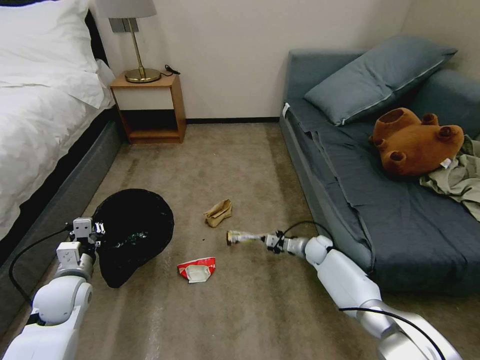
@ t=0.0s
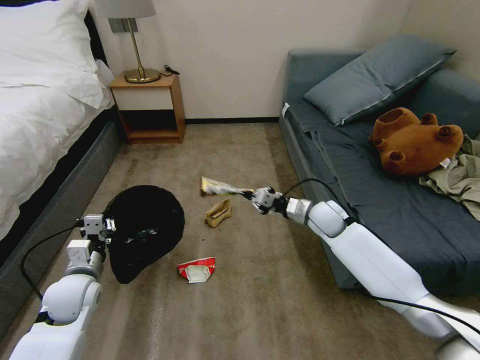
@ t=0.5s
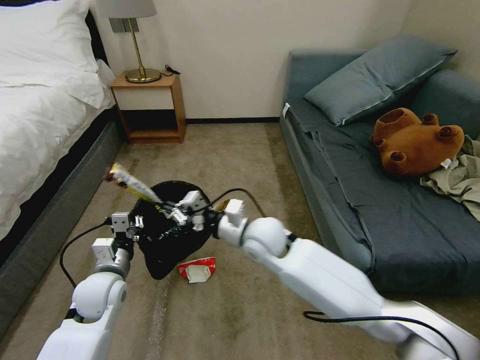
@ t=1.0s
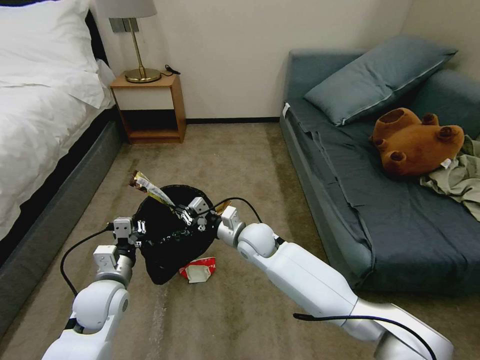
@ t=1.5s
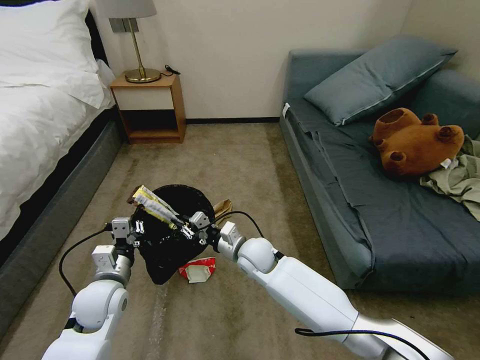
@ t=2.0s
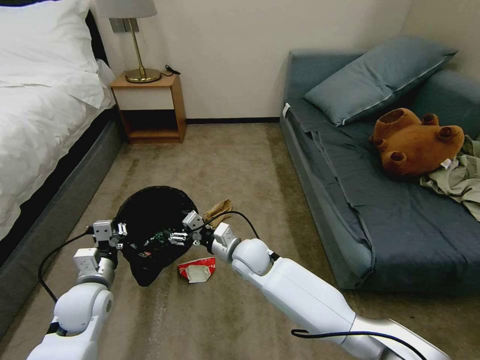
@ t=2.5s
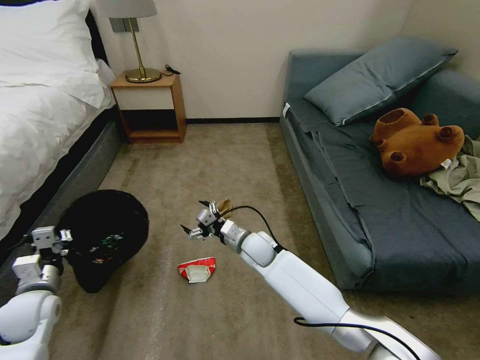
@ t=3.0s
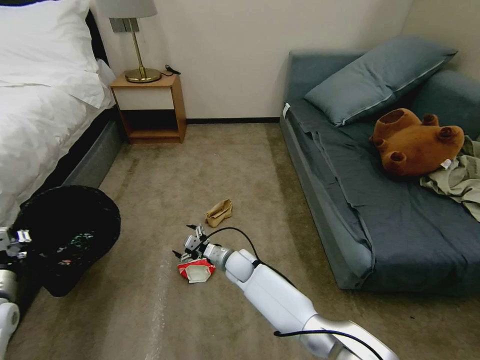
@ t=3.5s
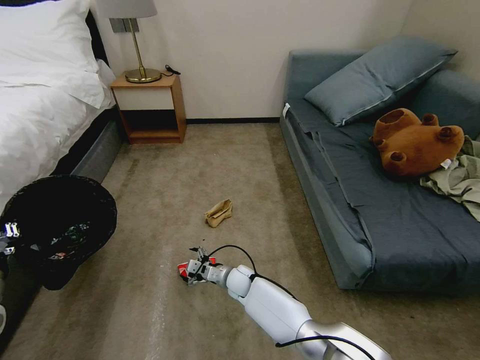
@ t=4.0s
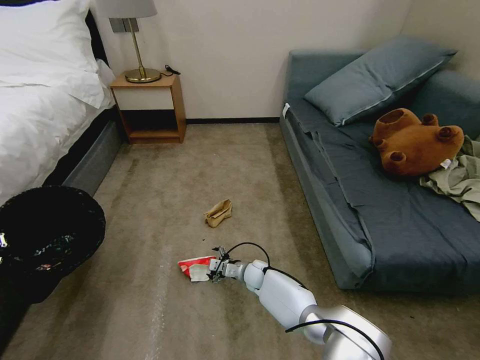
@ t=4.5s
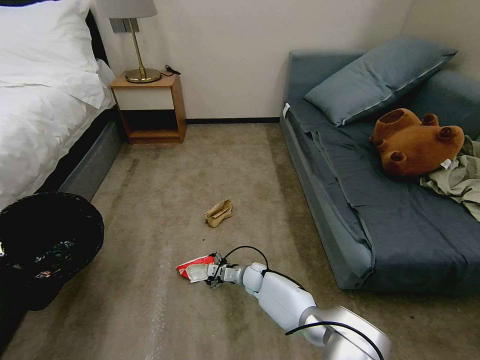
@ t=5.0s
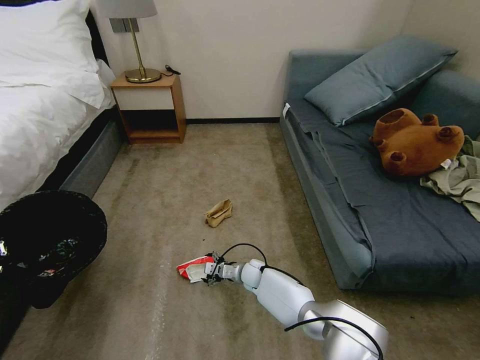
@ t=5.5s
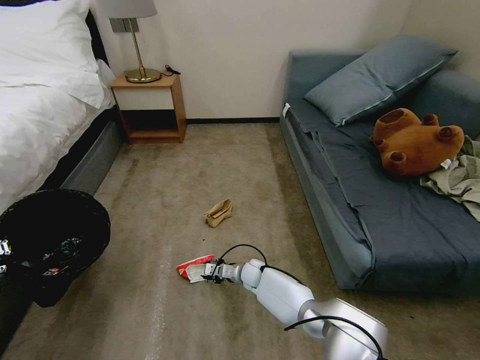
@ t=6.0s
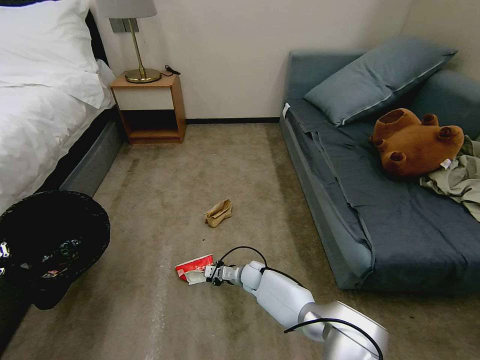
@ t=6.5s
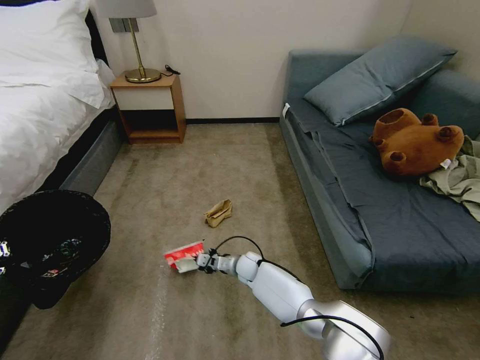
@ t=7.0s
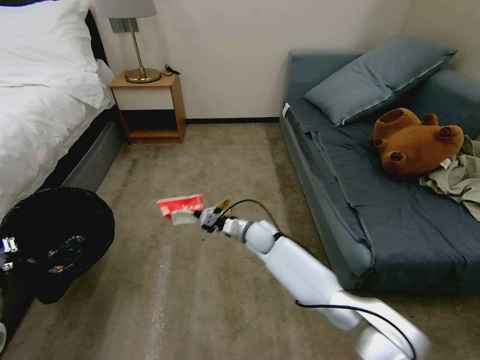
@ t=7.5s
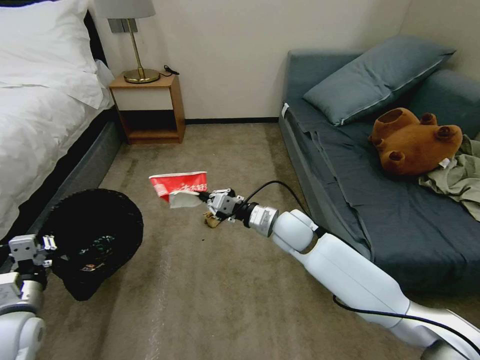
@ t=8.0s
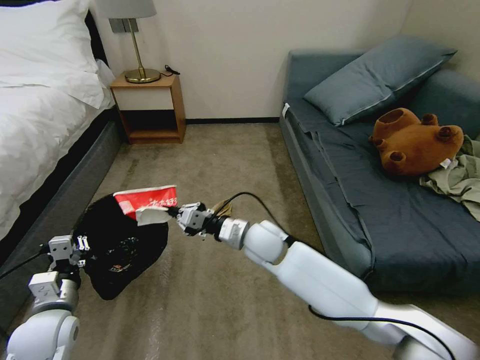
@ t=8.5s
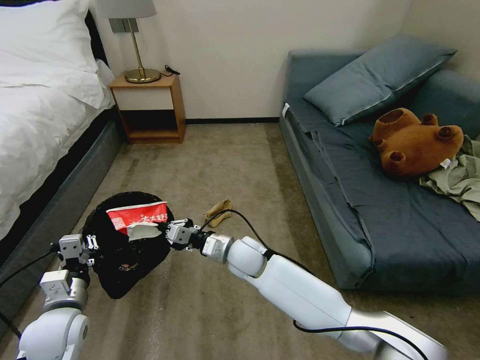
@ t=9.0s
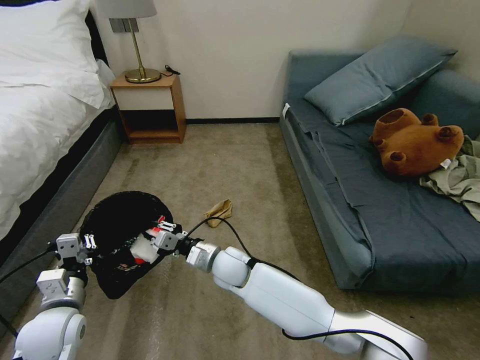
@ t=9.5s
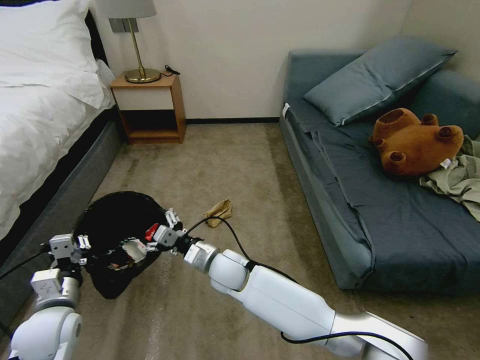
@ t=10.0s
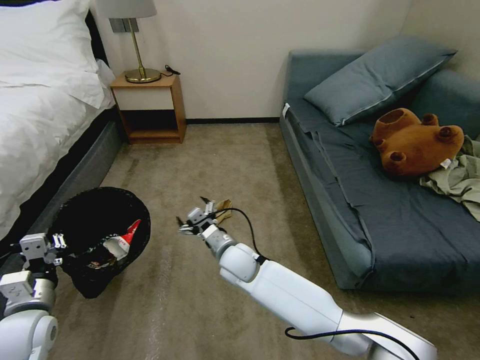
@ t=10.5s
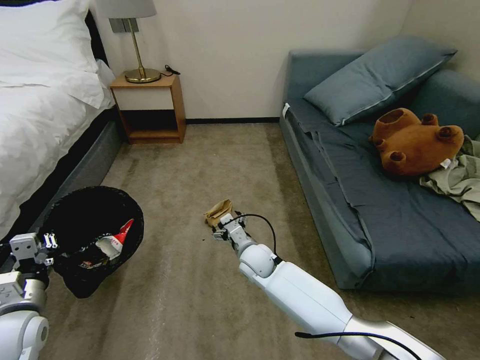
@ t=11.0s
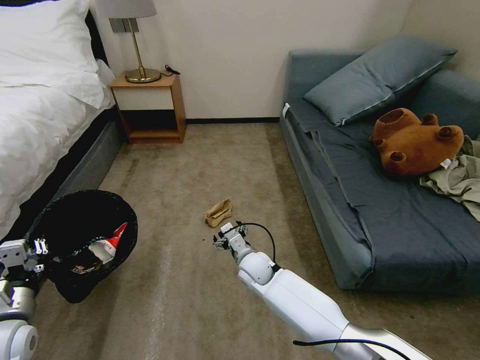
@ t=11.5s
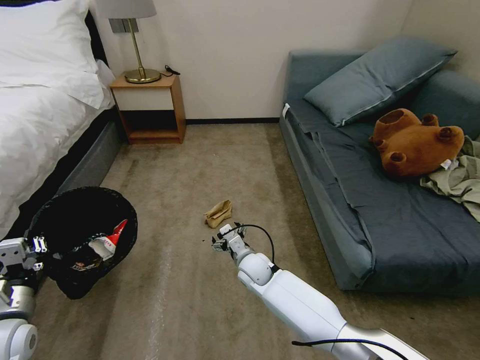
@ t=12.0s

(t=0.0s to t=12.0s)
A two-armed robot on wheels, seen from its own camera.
Task of the whole recording: Pick up the trash bin, then pick up the garbage on the floor and place it into the trash bin.
t=0.0s - t=2.0s: The left gripper shifts some 10 cm to the right. The right gripper travels to the left, upward and backward by about 30 cm.
t=2.0s - t=4.0s: The right gripper moves downward, roughly 15 cm, and opens its fingers; the left gripper shifts roughly 20 cm to the left.
t=4.0s - t=6.0s: The right gripper ends up about 5 cm from where it was, and closes up.
t=6.0s - t=8.0s: The right gripper heads upward, covering roughly 30 cm, and closes, while the left gripper shifts approximately 5 cm to the right.
t=8.0s - t=10.0s: The left gripper is displaced to the right by approximately 5 cm; the right gripper moves to the left and downward, about 20 cm, and opens its fingers.
t=10.0s - t=12.0s: The left gripper moves to the left, approximately 10 cm, while the right gripper goes approximately 10 cm to the right and downward.

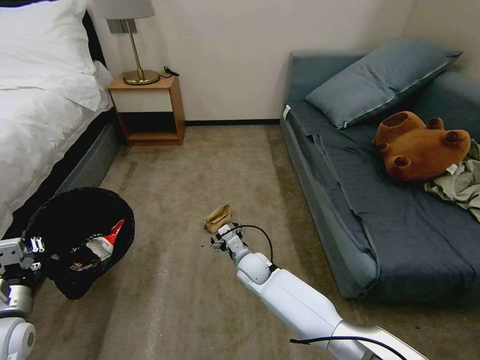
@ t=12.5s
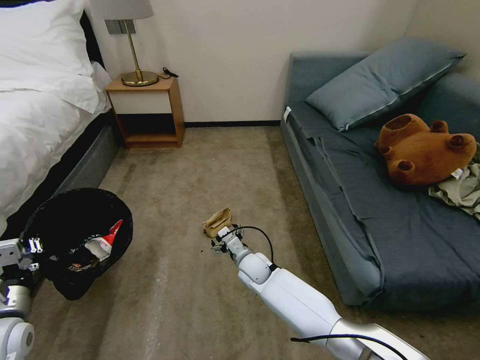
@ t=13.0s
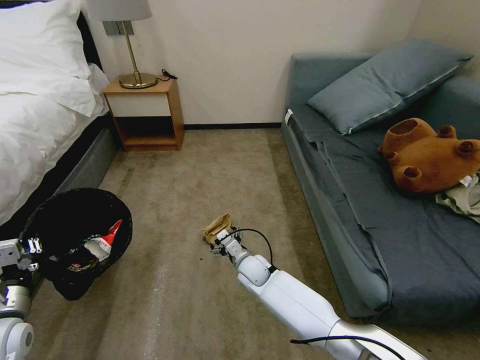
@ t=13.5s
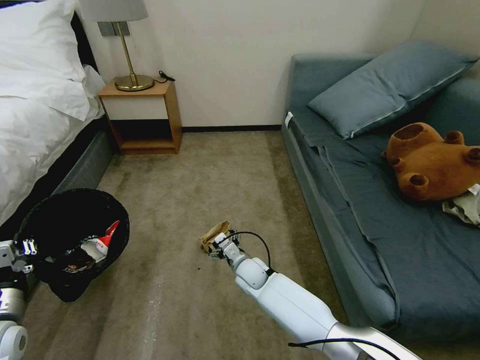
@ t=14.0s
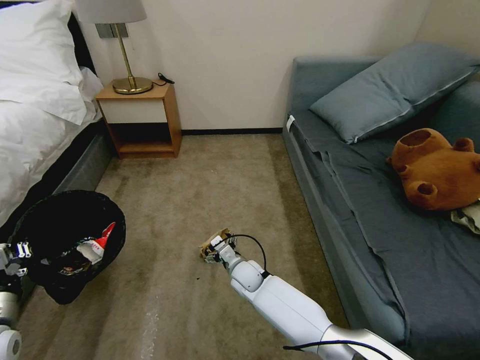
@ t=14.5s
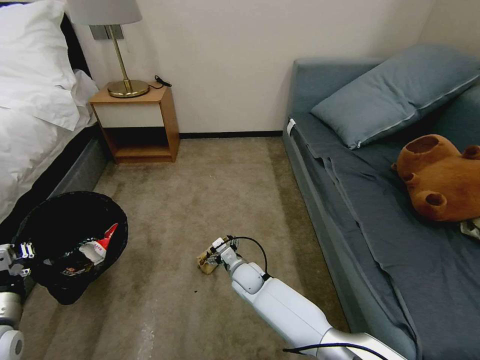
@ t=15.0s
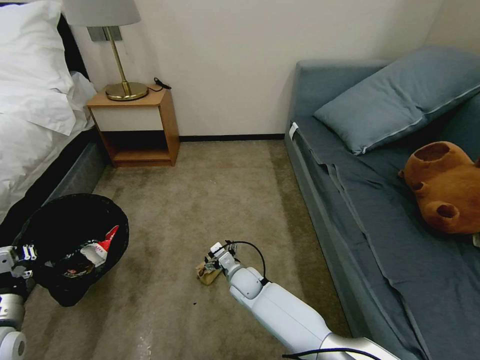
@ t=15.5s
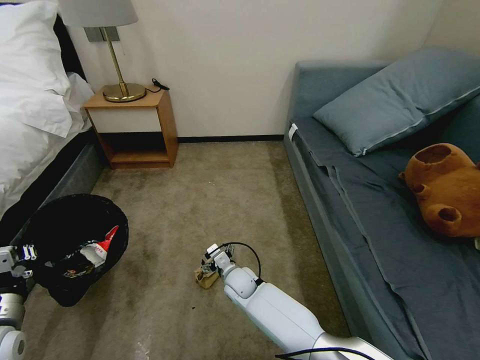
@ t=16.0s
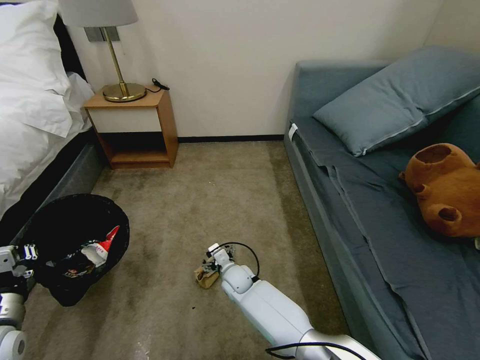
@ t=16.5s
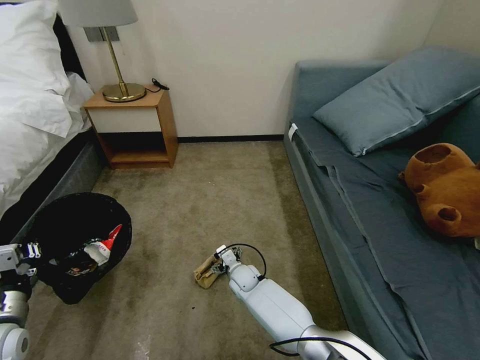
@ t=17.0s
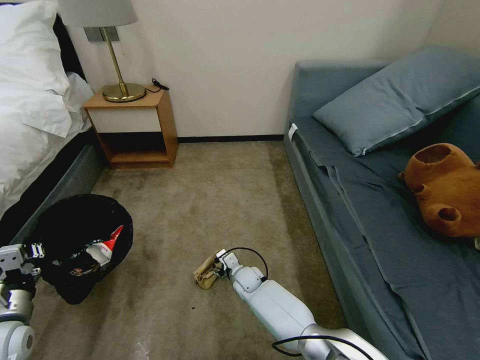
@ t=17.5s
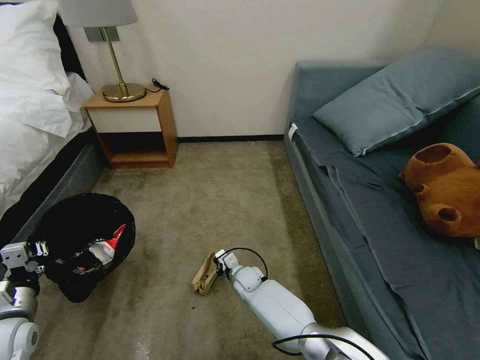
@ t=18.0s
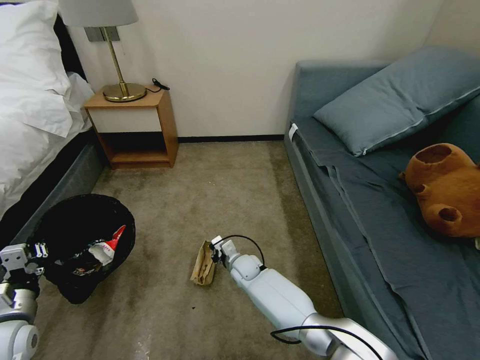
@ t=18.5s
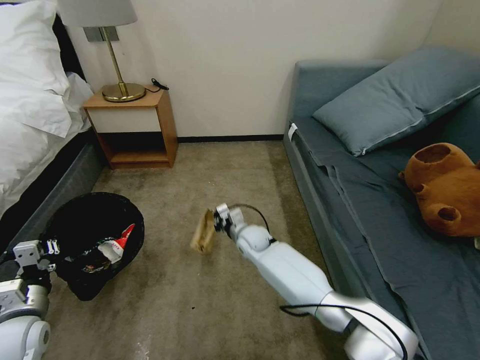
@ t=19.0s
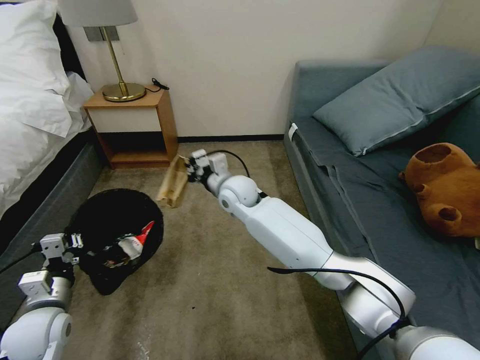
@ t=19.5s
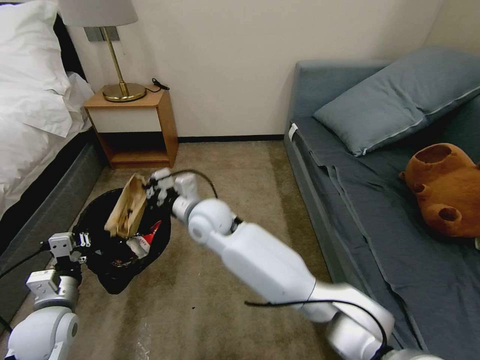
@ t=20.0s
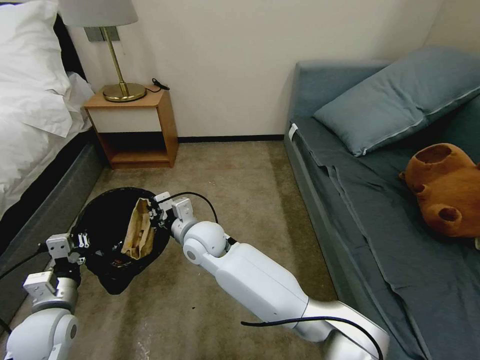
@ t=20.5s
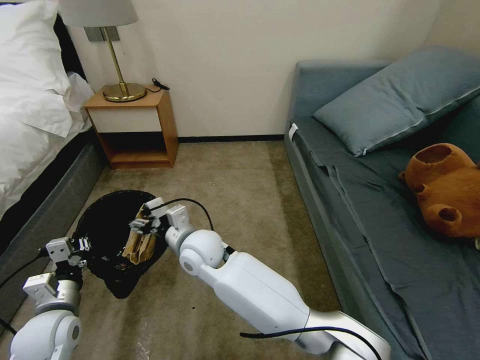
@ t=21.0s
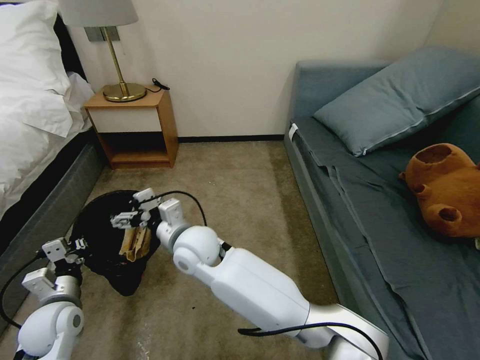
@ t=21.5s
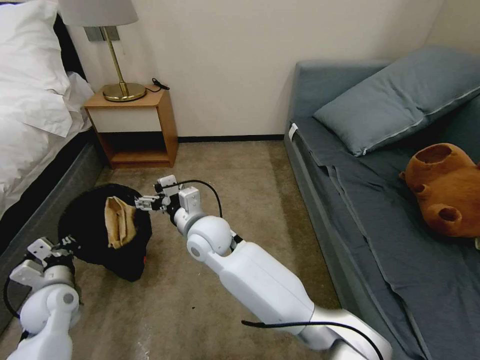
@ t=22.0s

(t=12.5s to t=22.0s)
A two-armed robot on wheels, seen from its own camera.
Task of the whole recording: Pick up the trash bin, then pick up the garbage on the floor and place it into the trash bin.
t=16.5s - t=18.0s: The right gripper ends up some 5 cm from where it was, and closes its fingers.
t=18.0s - t=20.0s: The right gripper moves upward, some 30 cm. Meanwhile the left gripper heads to the right, covering some 10 cm.
t=20.0s - t=22.0s: The right gripper travels backward by about 5 cm, and opens. The left gripper is displaced forward by roughly 5 cm.

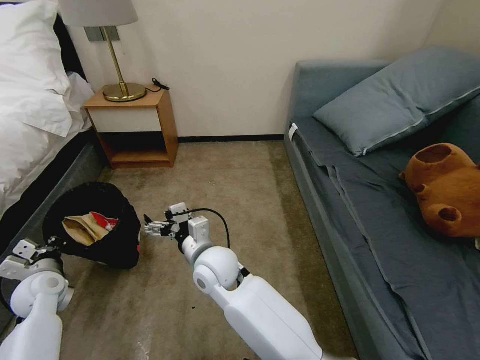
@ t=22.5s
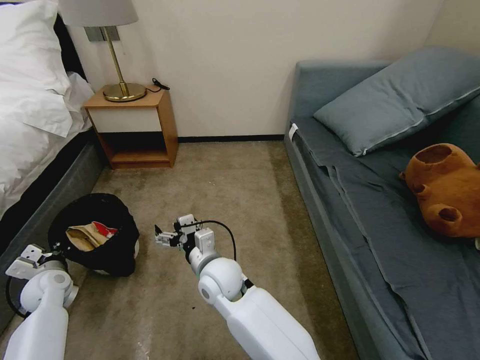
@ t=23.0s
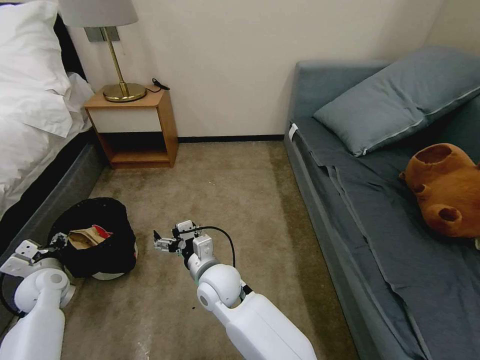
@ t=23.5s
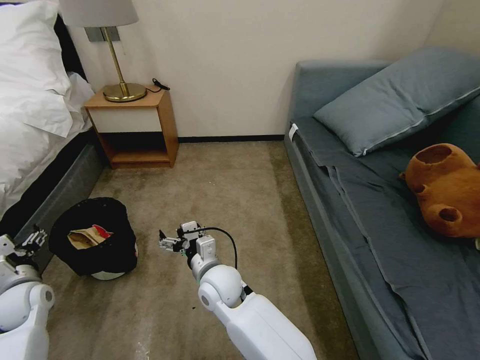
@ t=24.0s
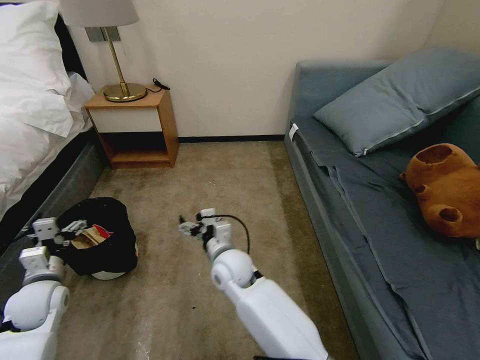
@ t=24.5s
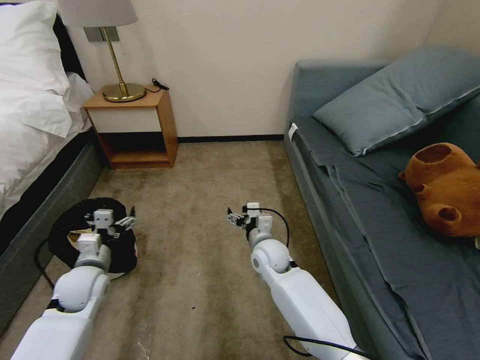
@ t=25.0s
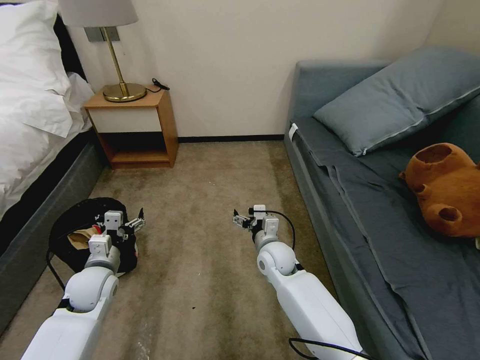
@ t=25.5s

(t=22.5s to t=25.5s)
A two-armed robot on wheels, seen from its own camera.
Task of the whole recording: Pick up the trash bin, then pick up the garbage on the floor and place it into the trash bin.
t=22.5s - t=24.0s: The left gripper opens its fingers. The right gripper goes approximately 5 cm downward.
t=24.0s - t=25.5s: The right gripper travels to the right and forward by some 15 cm. Meanwhile the left gripper heads to the right, covering roughly 15 cm.
